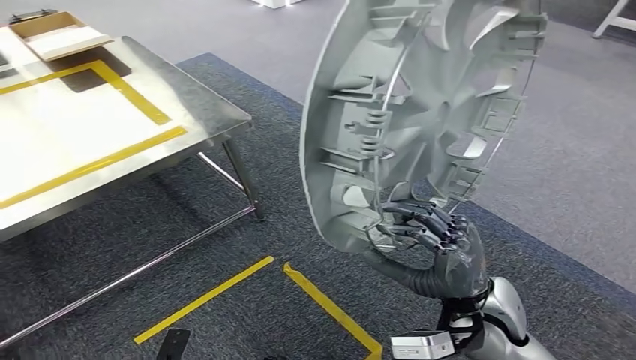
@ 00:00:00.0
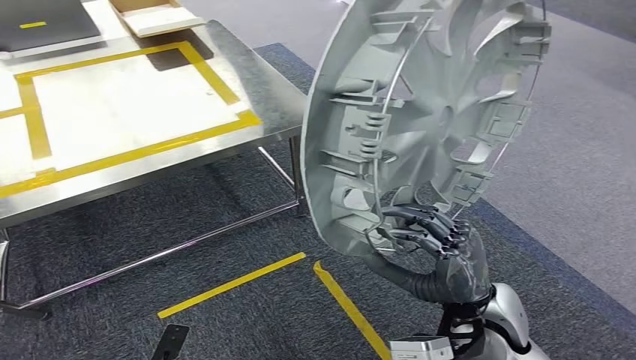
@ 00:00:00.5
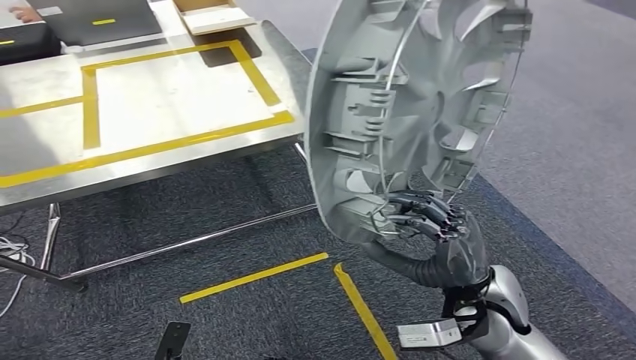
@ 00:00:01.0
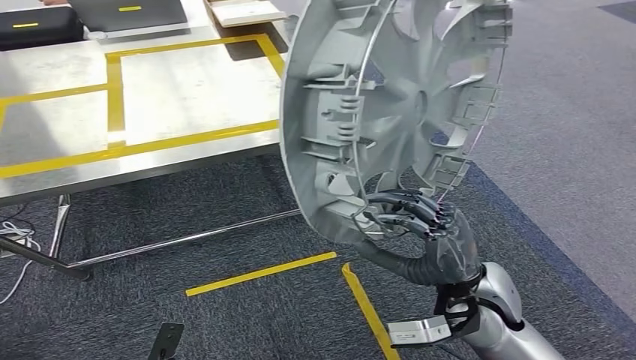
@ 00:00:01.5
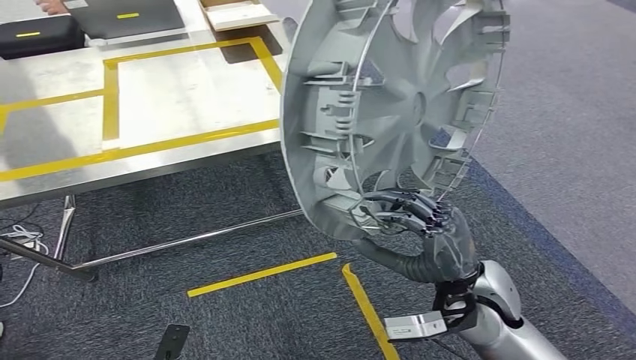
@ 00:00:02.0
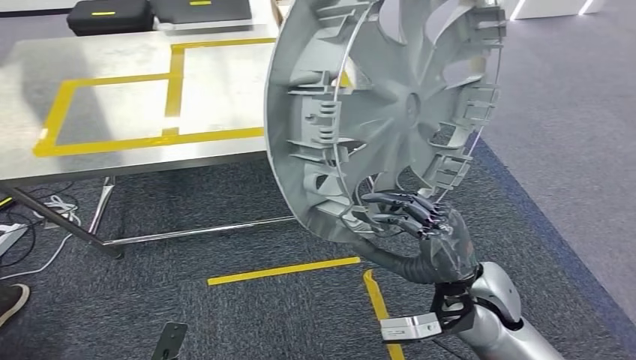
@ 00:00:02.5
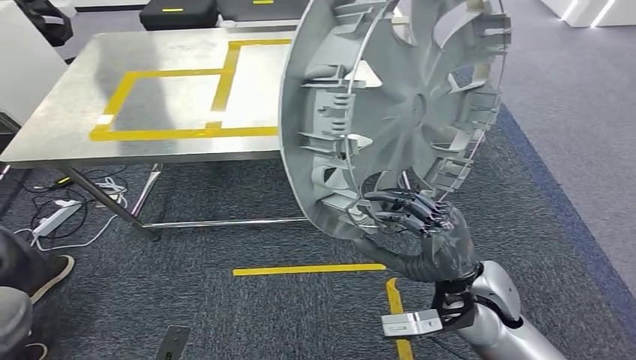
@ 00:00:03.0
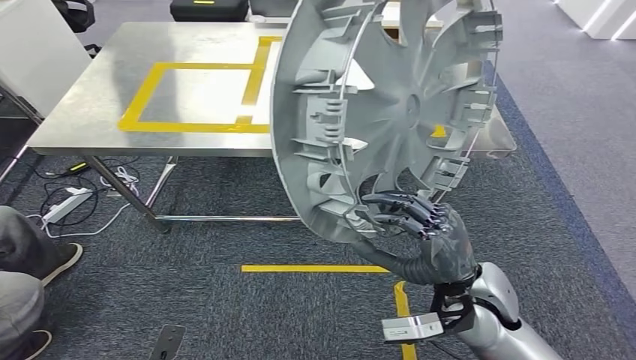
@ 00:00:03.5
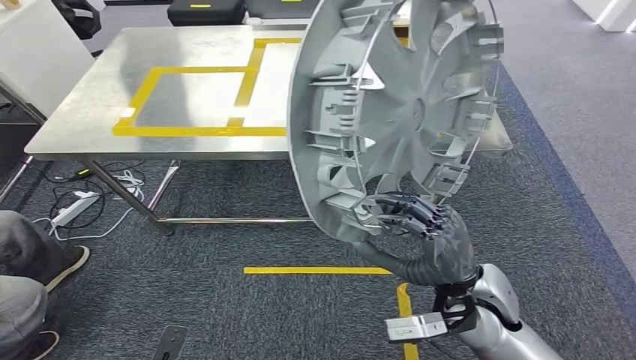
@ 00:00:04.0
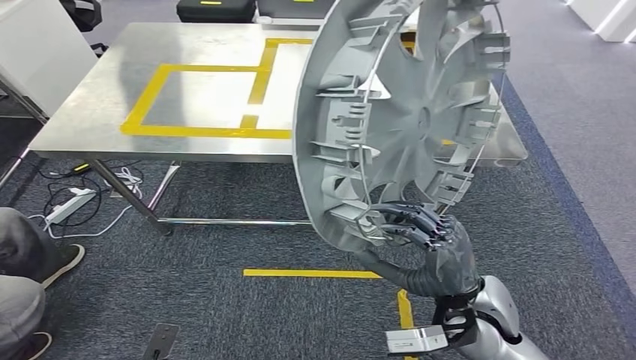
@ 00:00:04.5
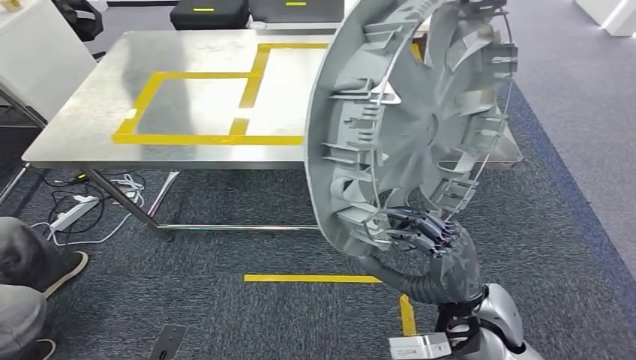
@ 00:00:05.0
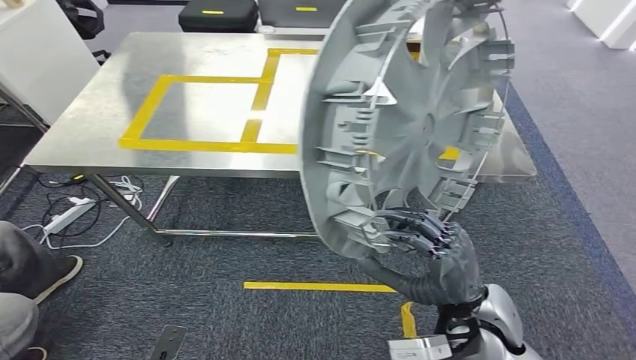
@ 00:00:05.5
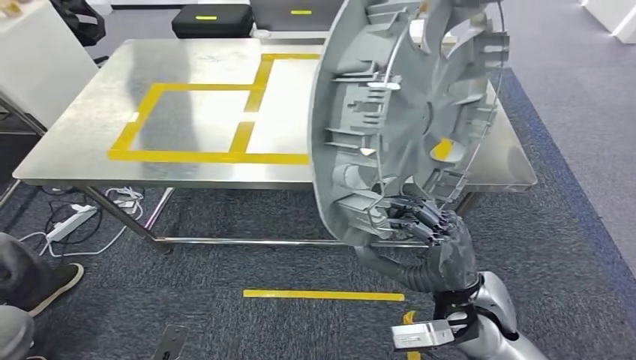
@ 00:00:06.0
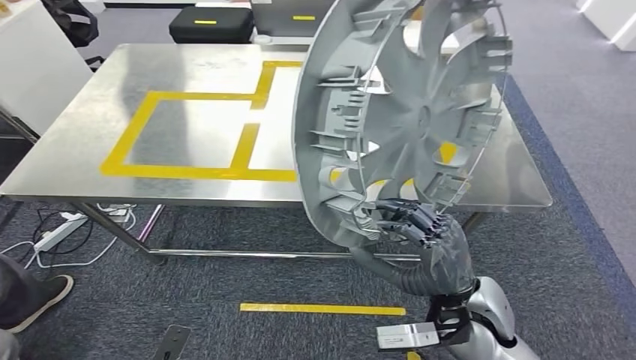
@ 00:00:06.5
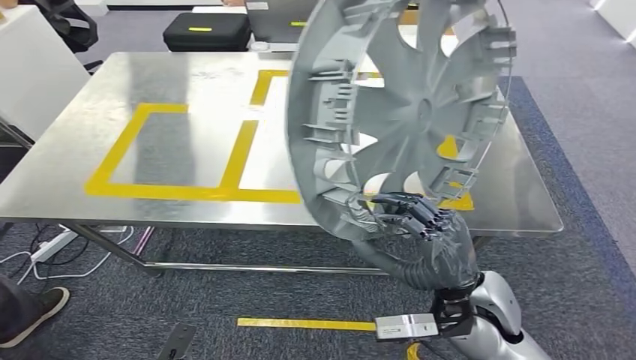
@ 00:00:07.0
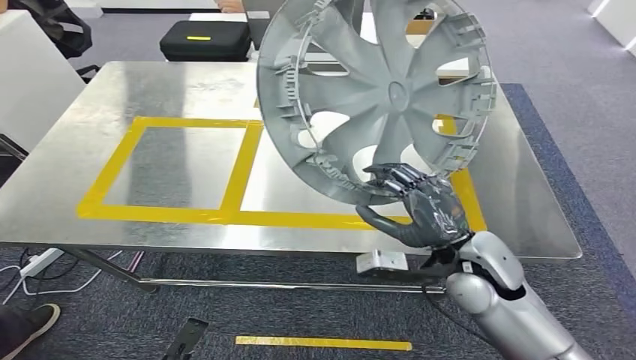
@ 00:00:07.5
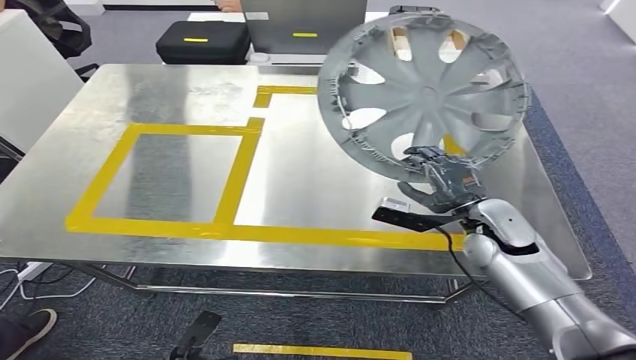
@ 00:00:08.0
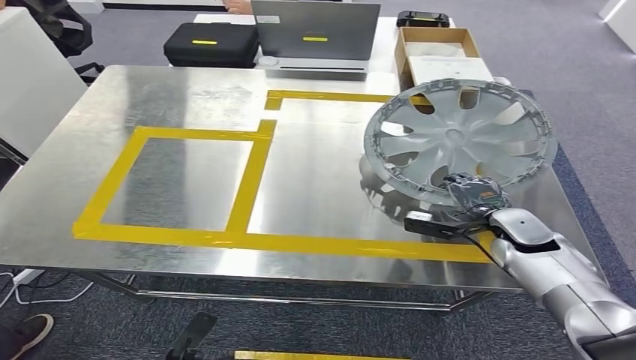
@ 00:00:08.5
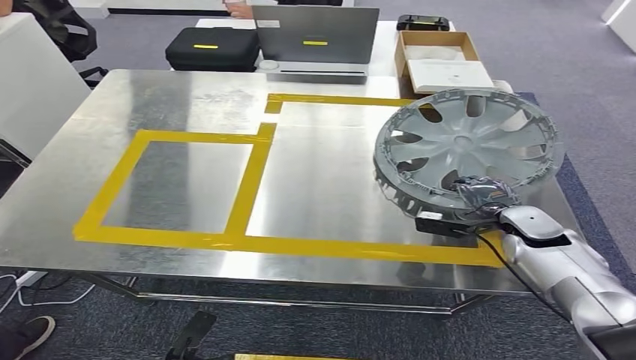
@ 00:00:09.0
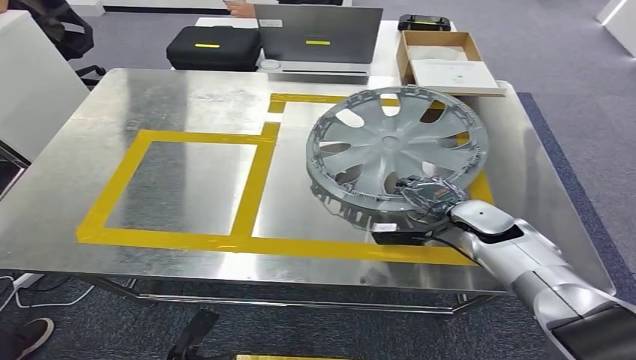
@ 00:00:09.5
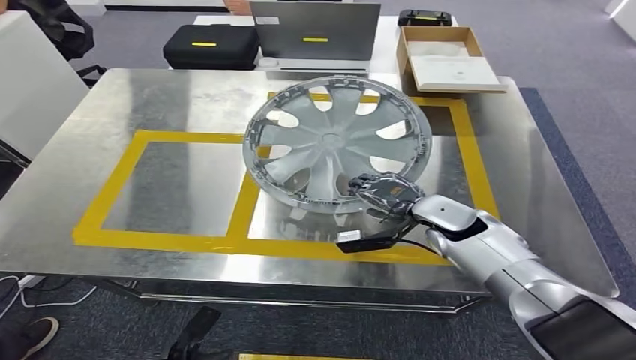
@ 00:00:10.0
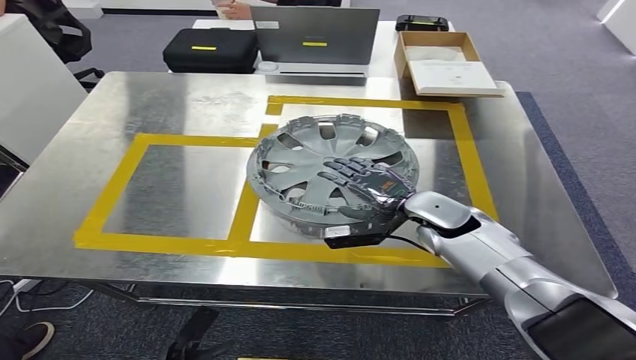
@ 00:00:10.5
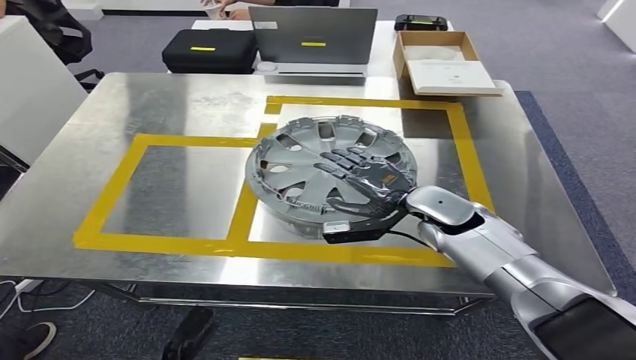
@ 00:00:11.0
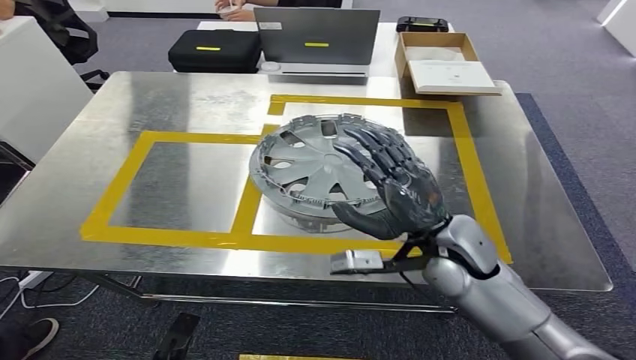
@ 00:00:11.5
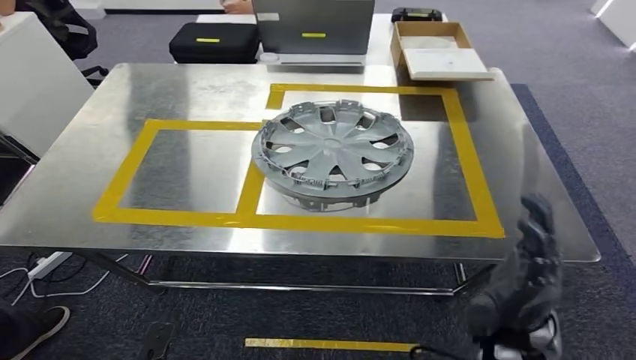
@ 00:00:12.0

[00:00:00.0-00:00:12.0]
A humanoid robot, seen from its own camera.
Step, 00:00:00.0 to 00:00:03.0: Move the small component to the workbench.

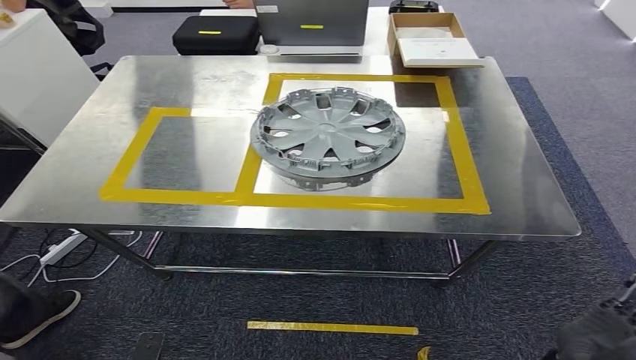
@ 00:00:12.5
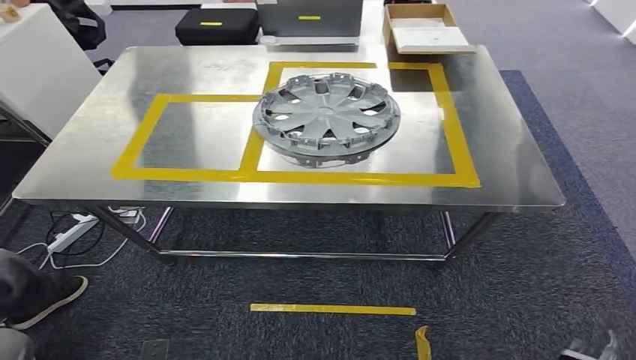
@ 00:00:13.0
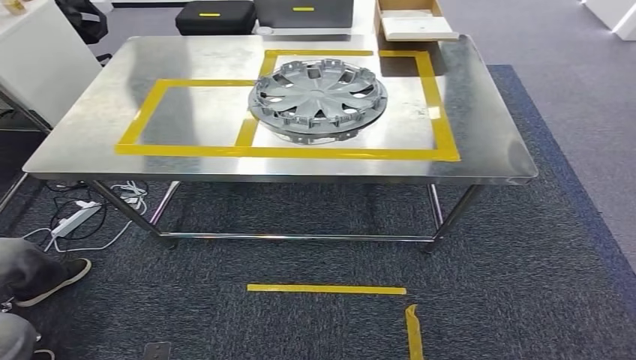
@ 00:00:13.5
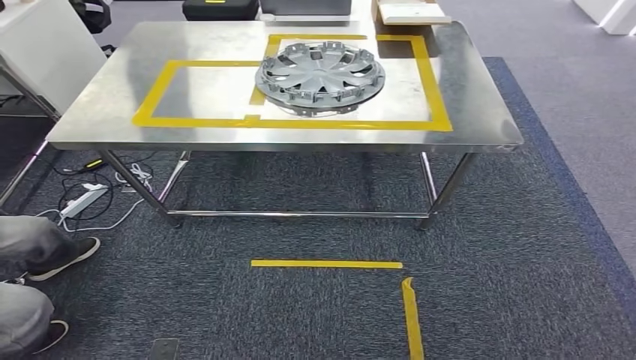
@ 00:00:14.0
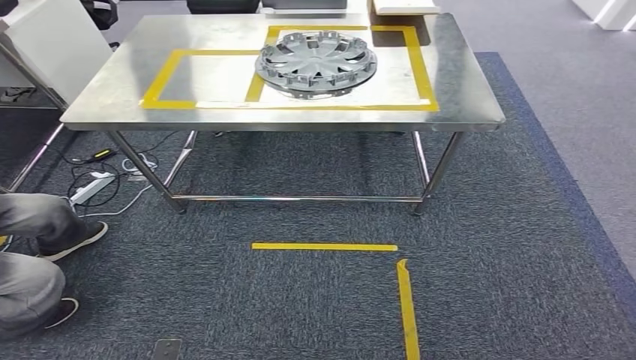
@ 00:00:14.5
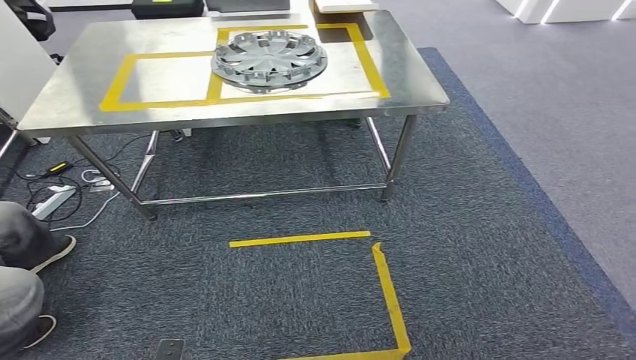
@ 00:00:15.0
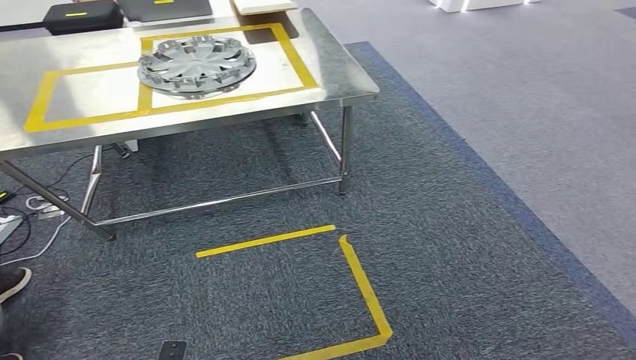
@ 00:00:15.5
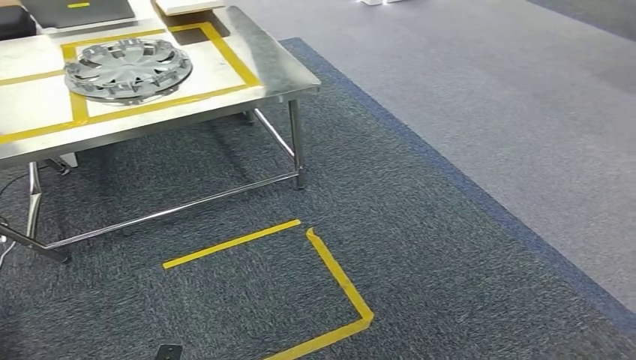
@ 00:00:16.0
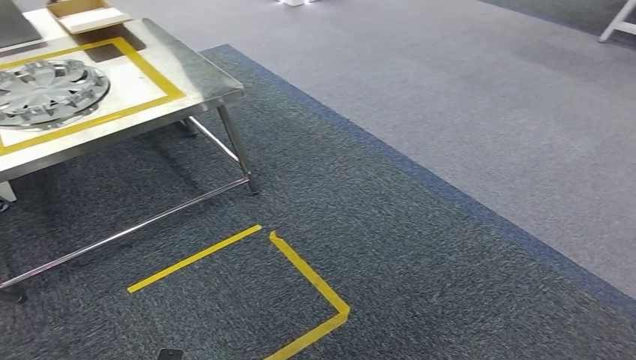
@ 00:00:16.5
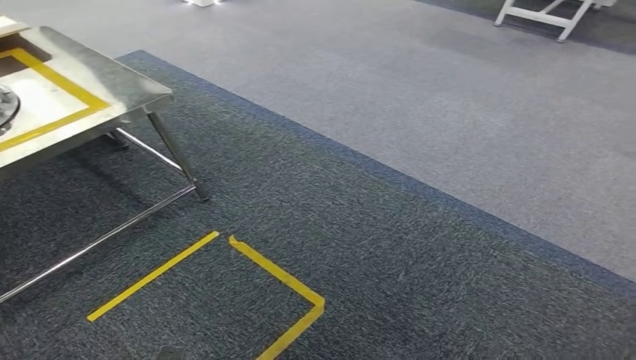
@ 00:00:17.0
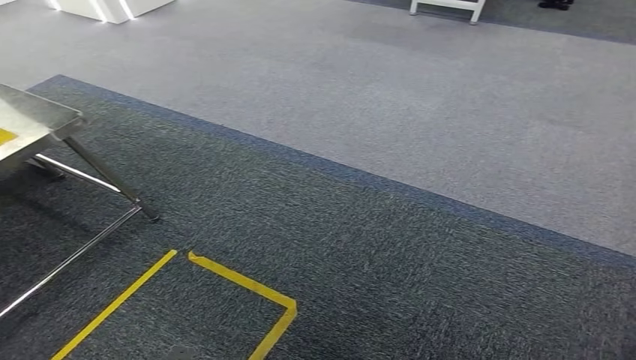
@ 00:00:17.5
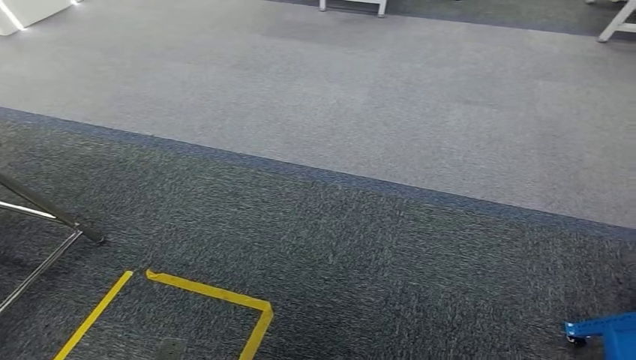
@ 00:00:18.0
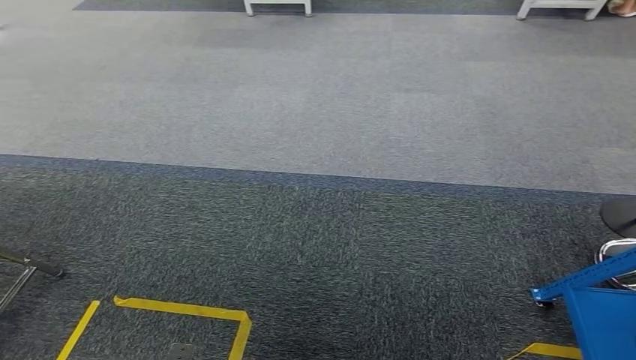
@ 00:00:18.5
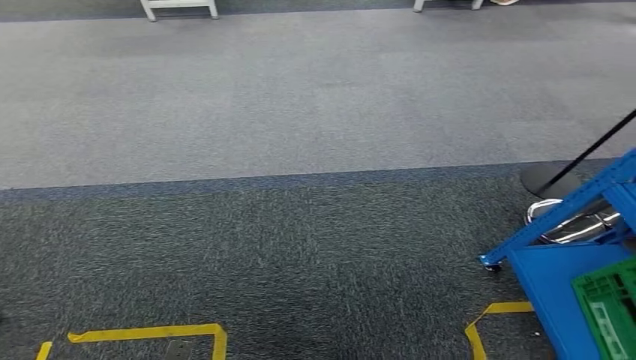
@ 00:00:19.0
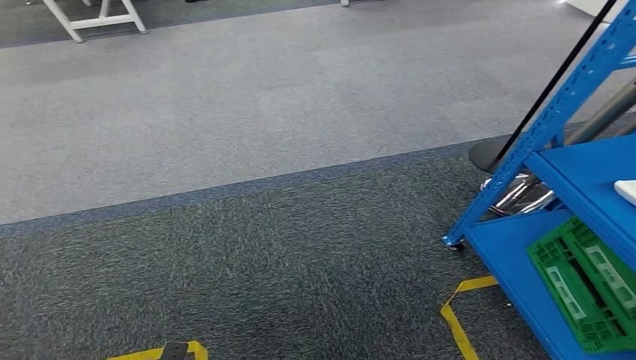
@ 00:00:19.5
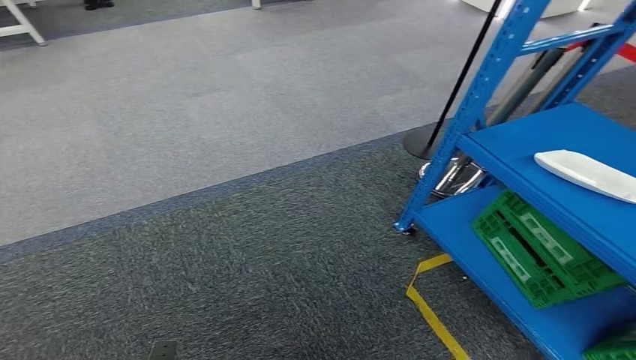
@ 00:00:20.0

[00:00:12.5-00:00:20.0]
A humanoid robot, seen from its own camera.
Step, 00:00:13.5 to 00:00:20.0: Return to the initial position at the workbench.
